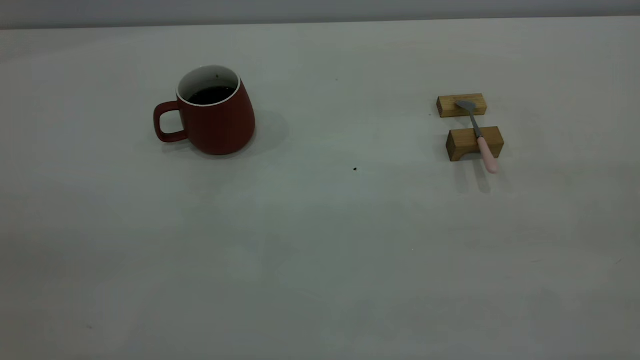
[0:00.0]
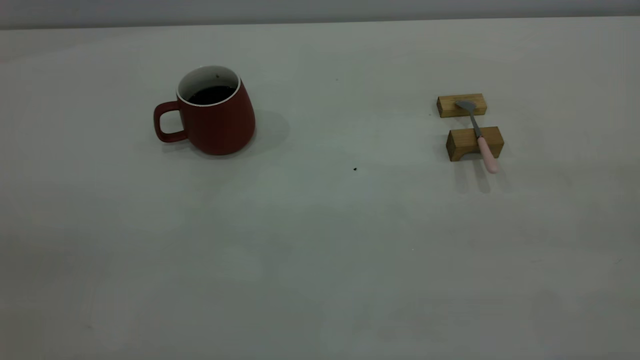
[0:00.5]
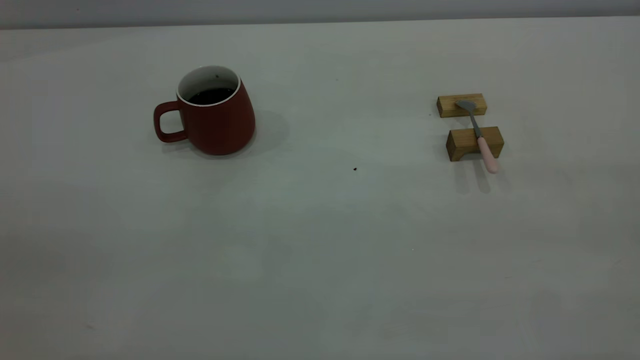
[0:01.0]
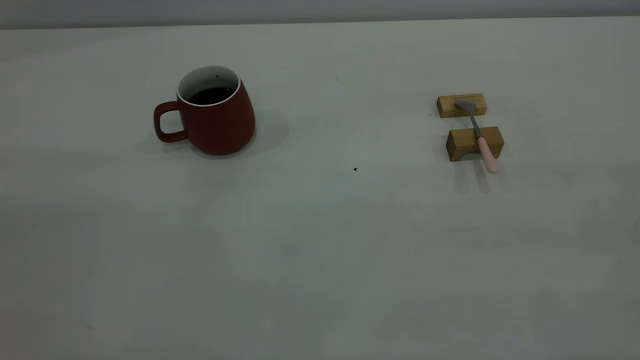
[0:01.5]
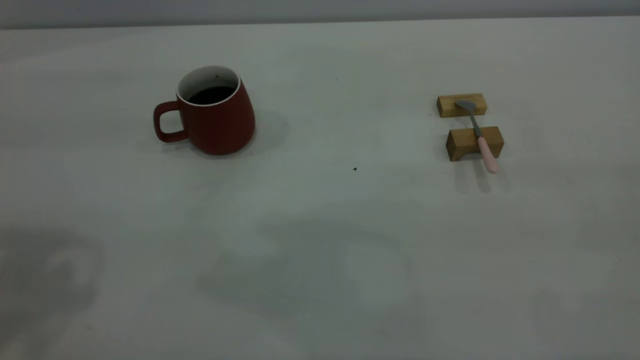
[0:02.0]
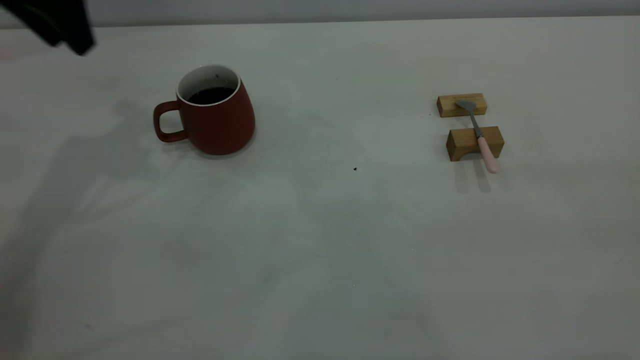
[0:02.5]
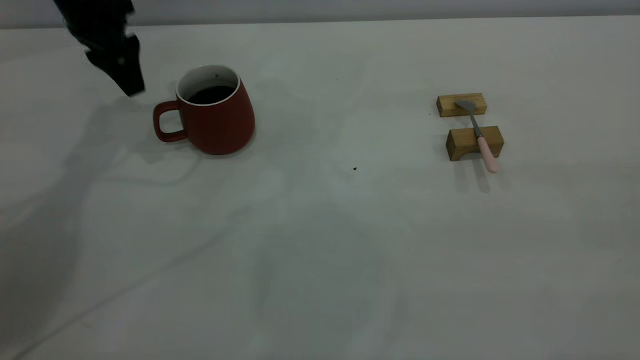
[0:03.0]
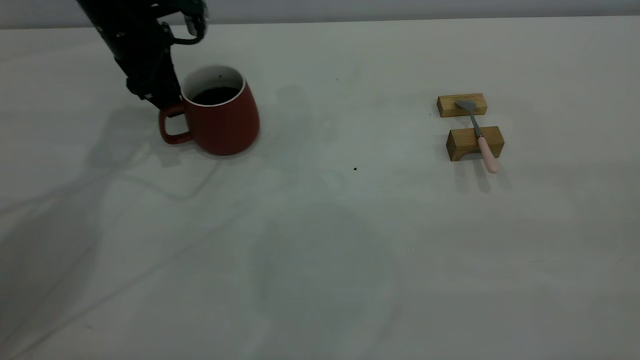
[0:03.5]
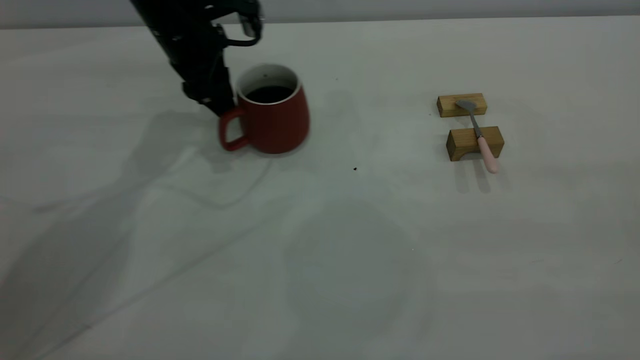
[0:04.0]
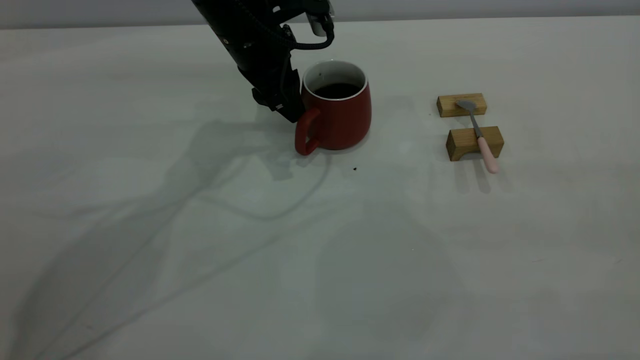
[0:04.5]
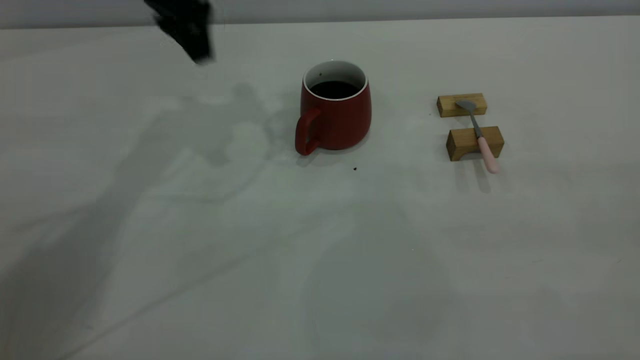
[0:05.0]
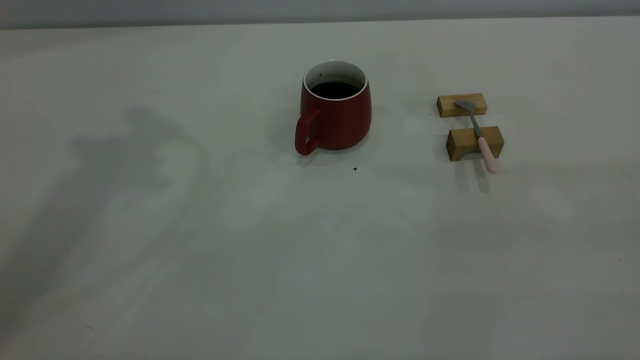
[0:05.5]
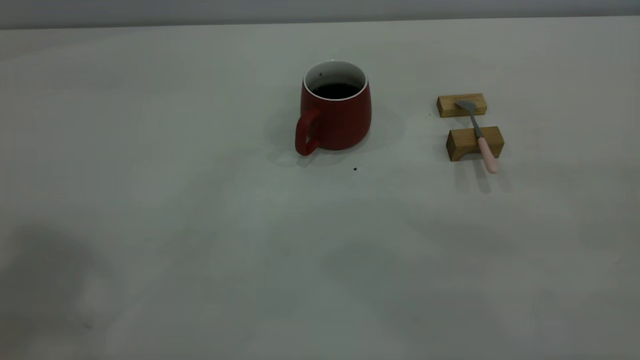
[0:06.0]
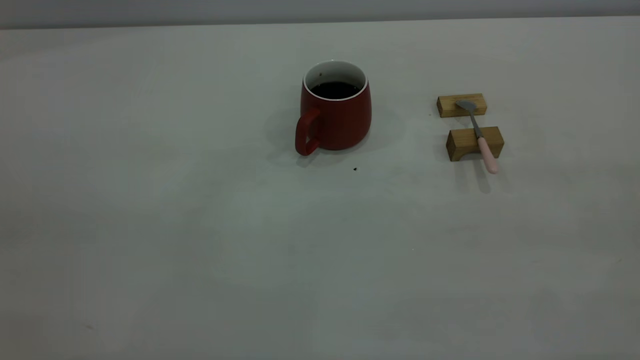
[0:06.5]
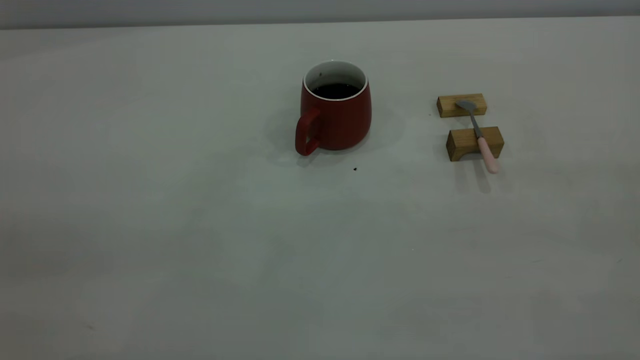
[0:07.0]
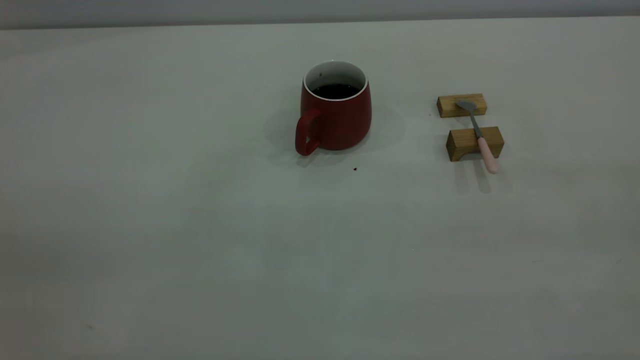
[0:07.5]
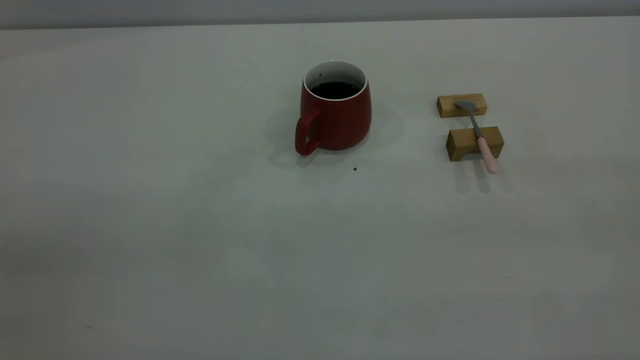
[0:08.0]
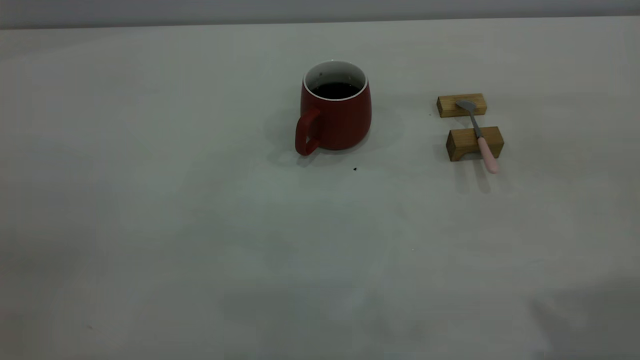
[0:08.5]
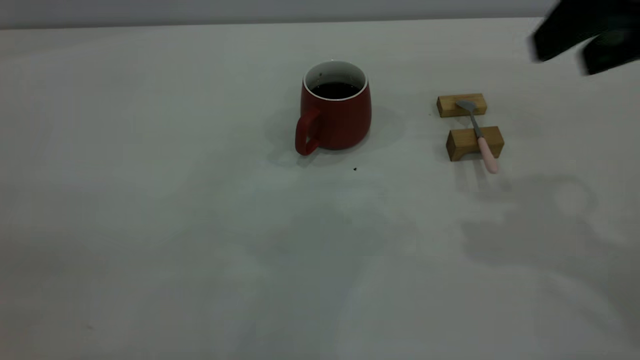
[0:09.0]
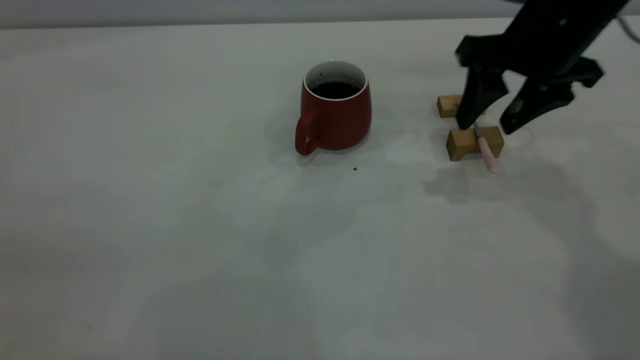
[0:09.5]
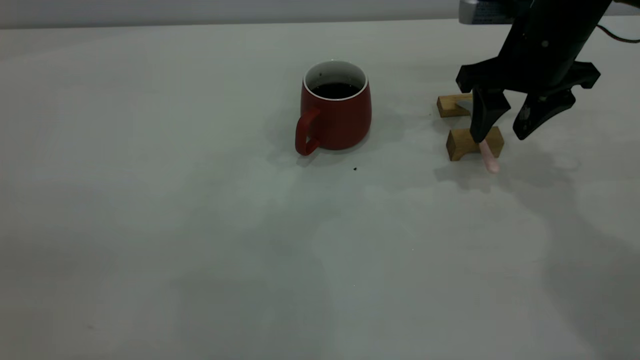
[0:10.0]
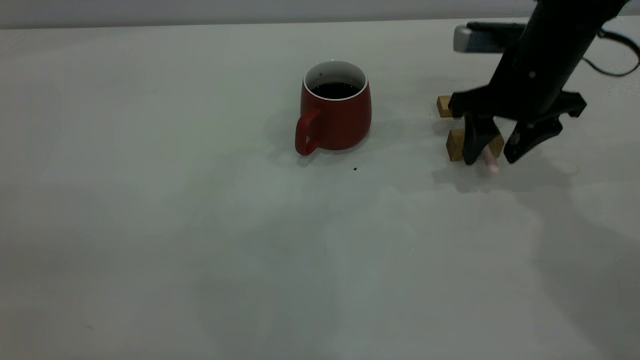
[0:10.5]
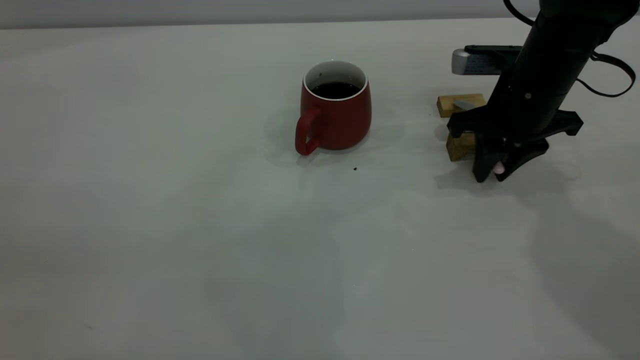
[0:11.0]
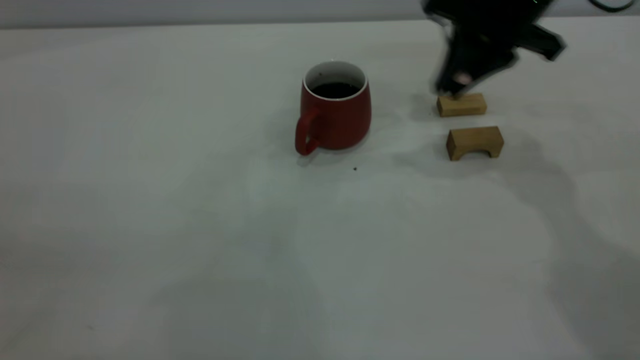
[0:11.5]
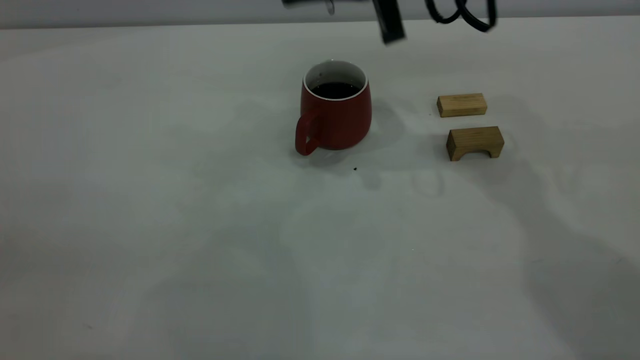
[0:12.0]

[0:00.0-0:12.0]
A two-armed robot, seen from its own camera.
Step, 0:00.0 to 0:04.5: Move the cup with coffee to the center of view.
Step, 0:05.0 to 0:11.0: Pick up the spoon.
0:02.0 to 0:04.0: The left gripper moves forward, downward and to the right, about 35 cm.
0:04.0 to 0:06.0: The left gripper travels upward and backward by some 50 cm.
0:08.0 to 0:10.0: The right gripper heads forward and downward, covering approximately 40 cm, and opens its fingers.
0:10.0 to 0:12.0: The right gripper moves to the left and upward, about 15 cm, and closes up.

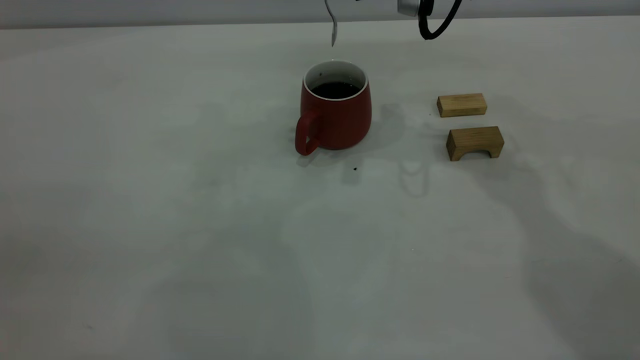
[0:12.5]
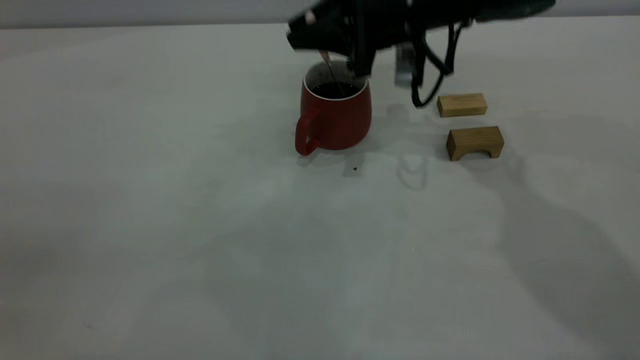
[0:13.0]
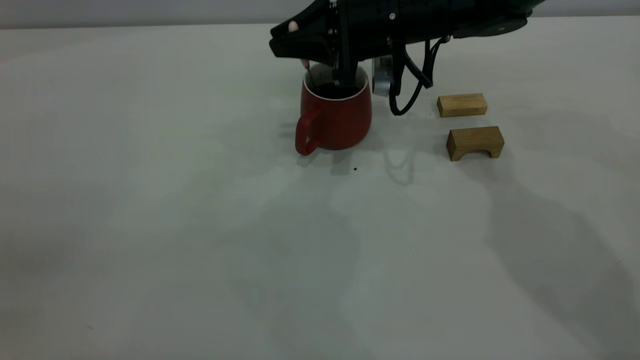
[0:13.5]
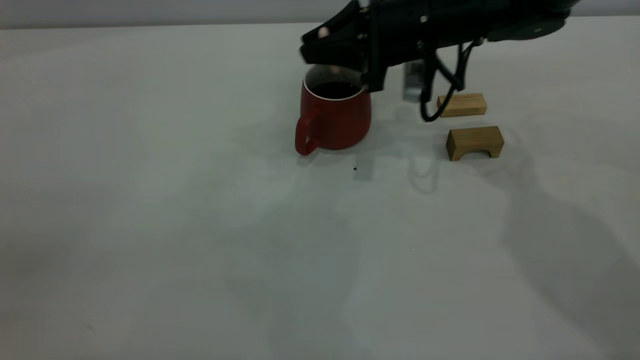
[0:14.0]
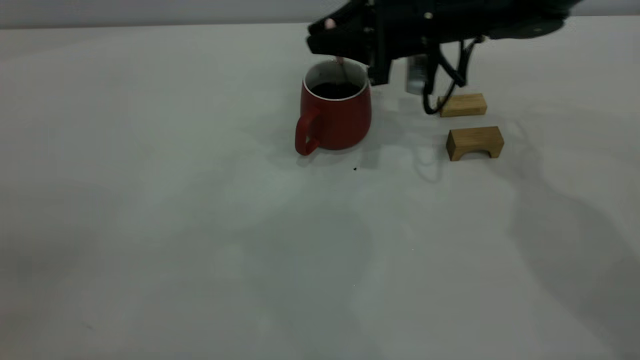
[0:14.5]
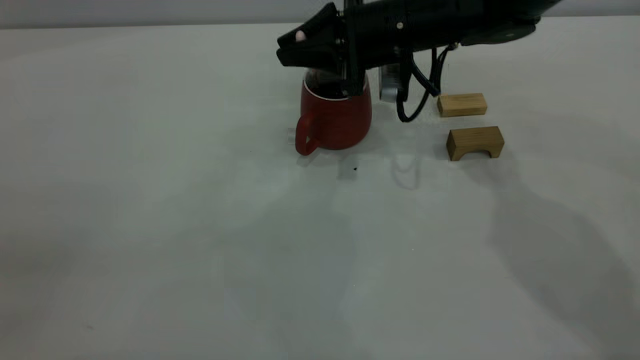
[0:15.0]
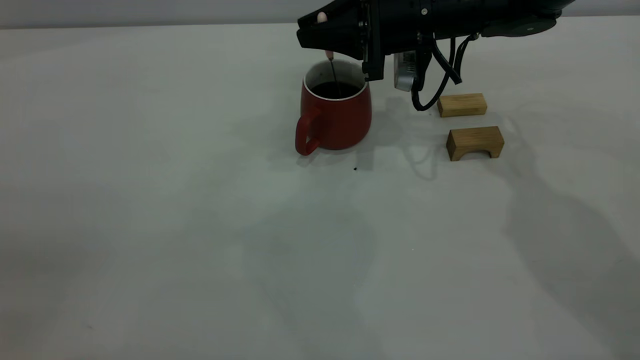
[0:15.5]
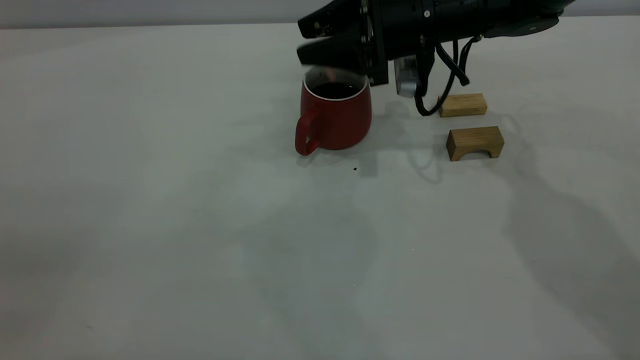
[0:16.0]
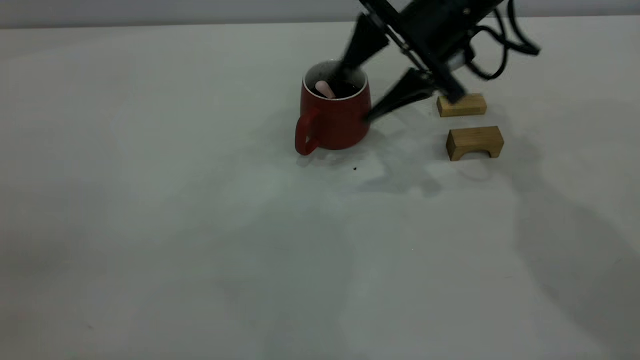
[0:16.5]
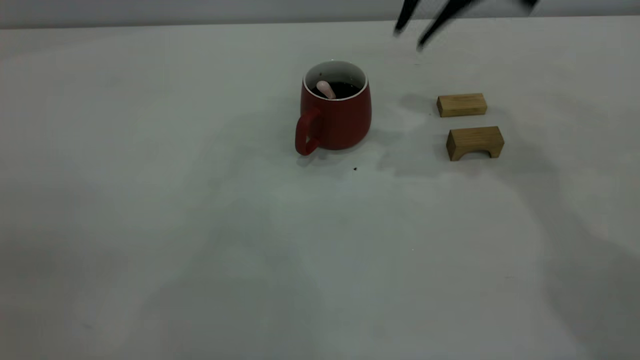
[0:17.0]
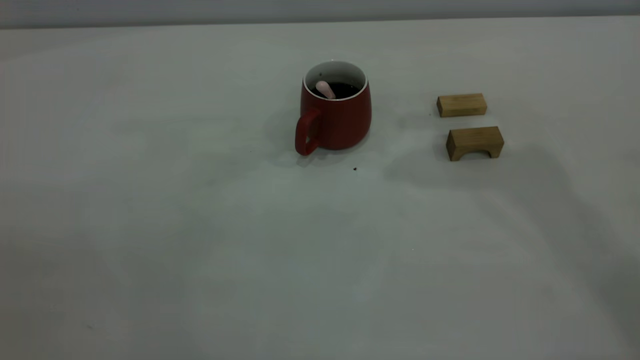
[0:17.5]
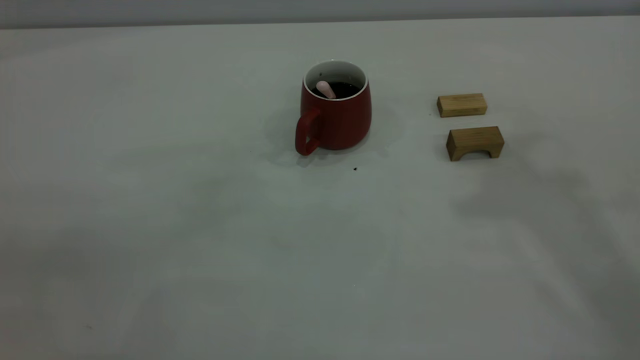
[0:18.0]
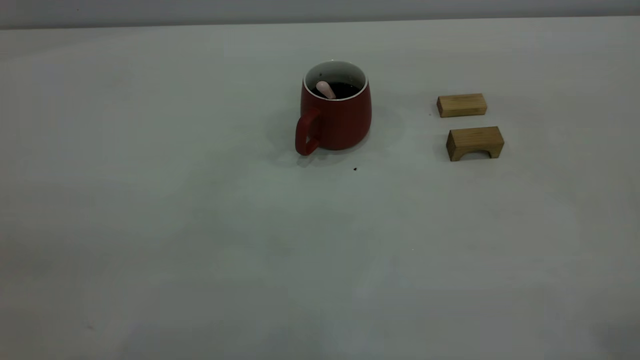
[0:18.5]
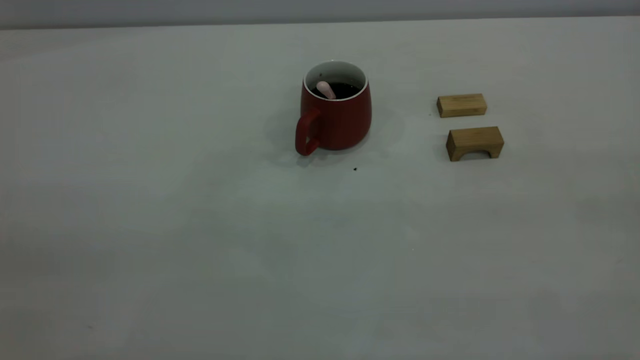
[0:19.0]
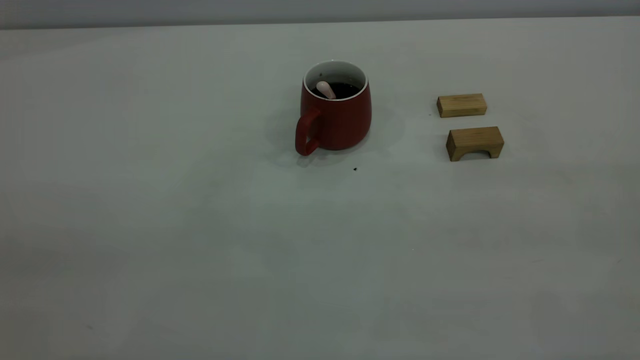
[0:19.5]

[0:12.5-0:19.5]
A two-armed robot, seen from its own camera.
Step, 0:12.5 to 0:16.5: Stir the coffee in the cup.
0:12.5 to 0:14.5: The right gripper is displaced downward by about 10 cm.
0:14.5 to 0:16.0: The right gripper opens.
0:16.0 to 0:17.5: The right gripper is displaced upward by some 35 cm, and closes its fingers.
